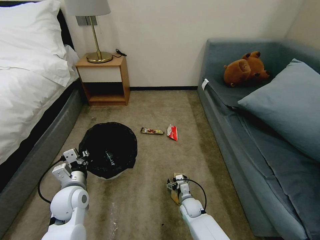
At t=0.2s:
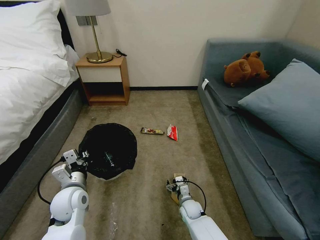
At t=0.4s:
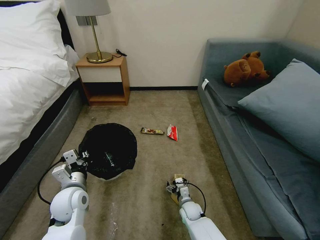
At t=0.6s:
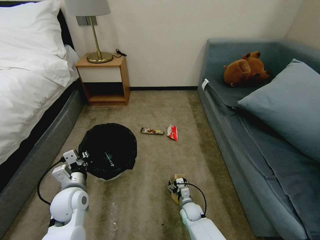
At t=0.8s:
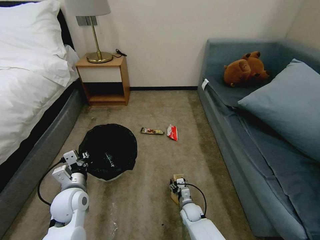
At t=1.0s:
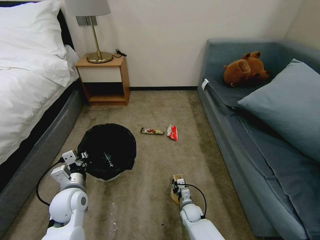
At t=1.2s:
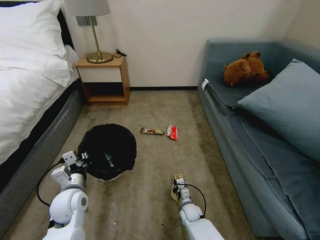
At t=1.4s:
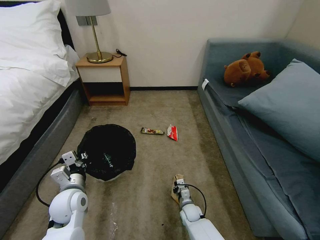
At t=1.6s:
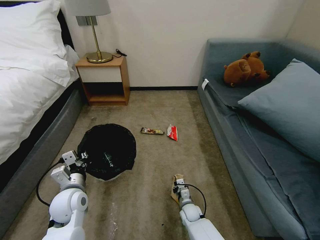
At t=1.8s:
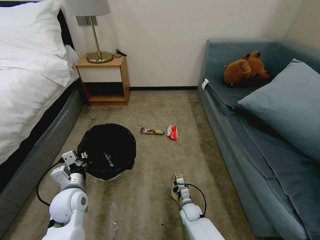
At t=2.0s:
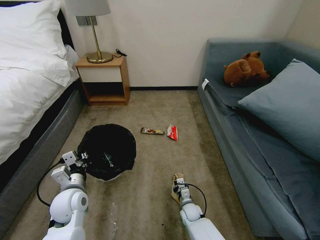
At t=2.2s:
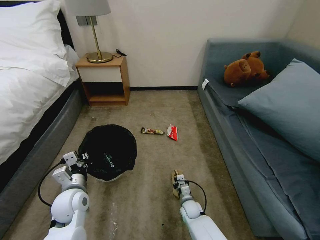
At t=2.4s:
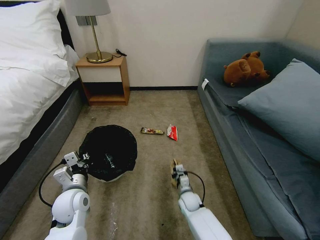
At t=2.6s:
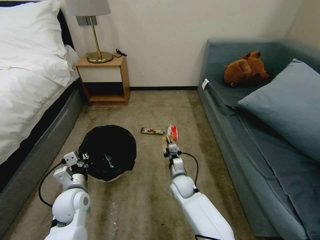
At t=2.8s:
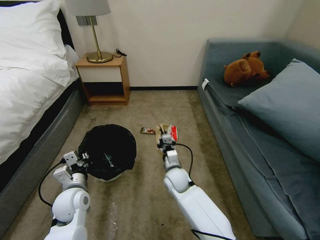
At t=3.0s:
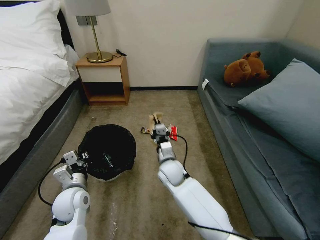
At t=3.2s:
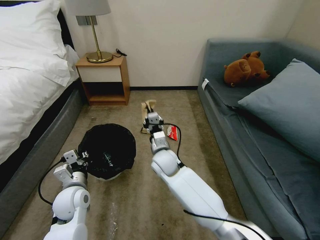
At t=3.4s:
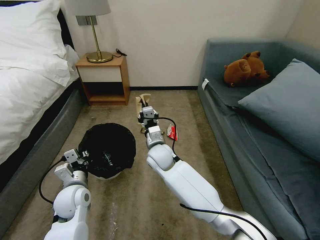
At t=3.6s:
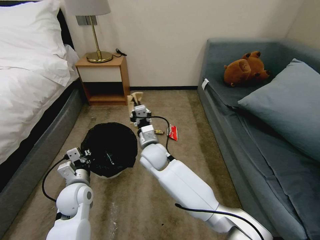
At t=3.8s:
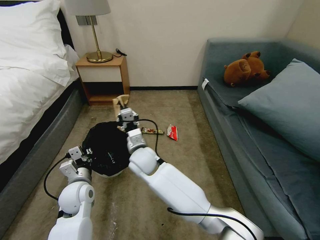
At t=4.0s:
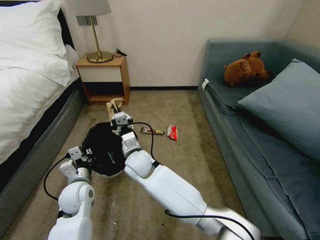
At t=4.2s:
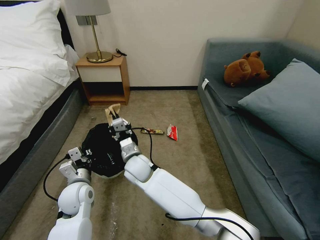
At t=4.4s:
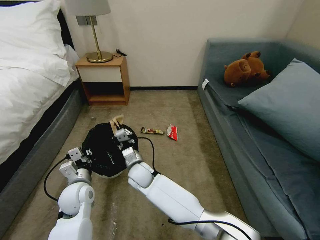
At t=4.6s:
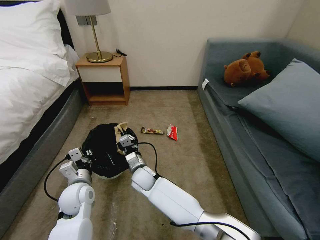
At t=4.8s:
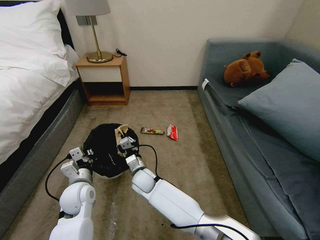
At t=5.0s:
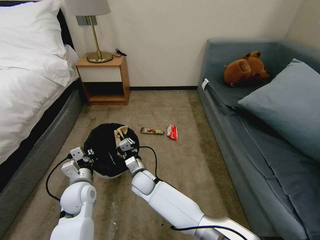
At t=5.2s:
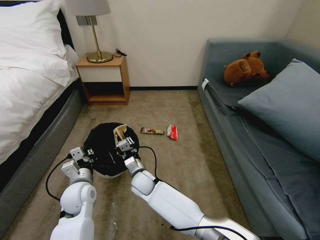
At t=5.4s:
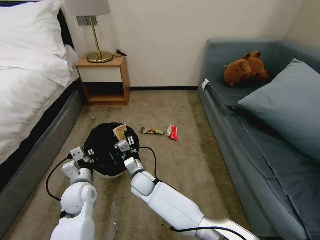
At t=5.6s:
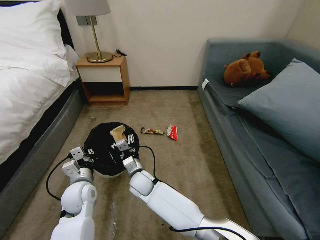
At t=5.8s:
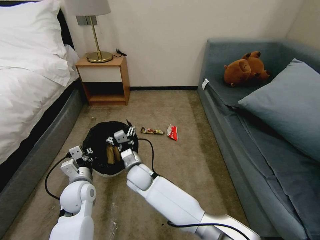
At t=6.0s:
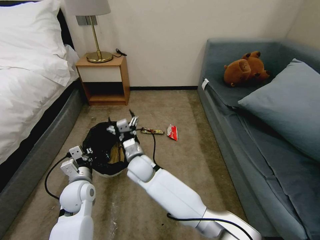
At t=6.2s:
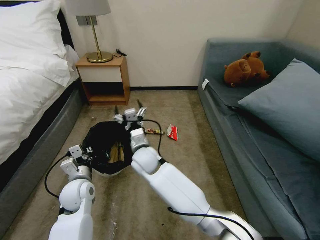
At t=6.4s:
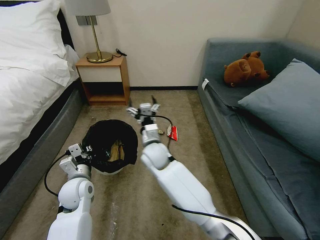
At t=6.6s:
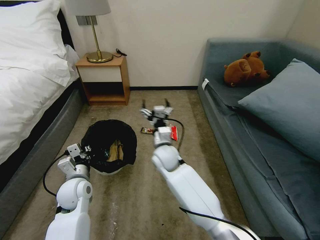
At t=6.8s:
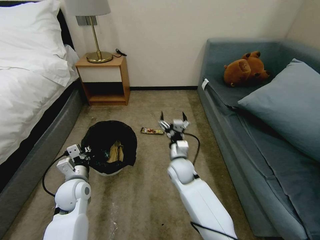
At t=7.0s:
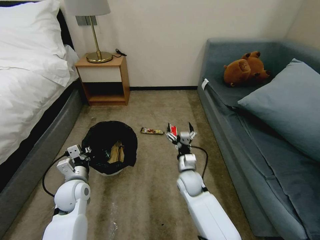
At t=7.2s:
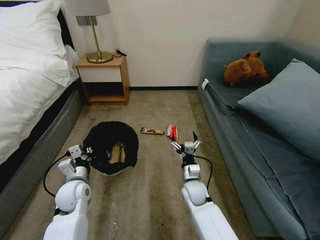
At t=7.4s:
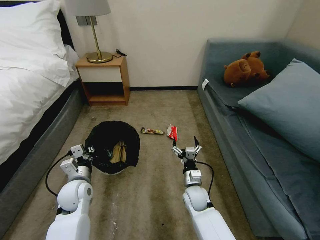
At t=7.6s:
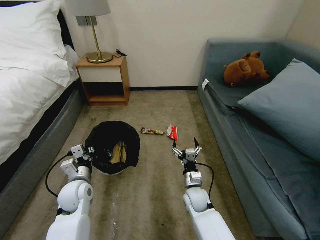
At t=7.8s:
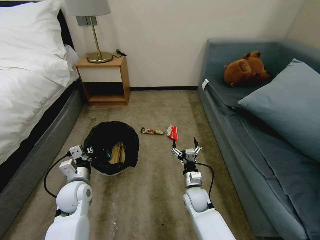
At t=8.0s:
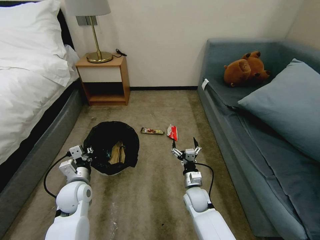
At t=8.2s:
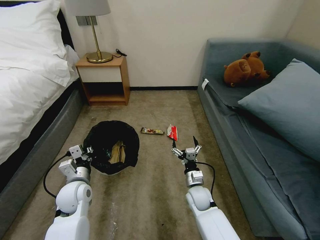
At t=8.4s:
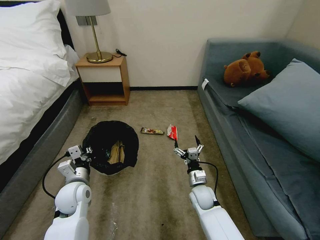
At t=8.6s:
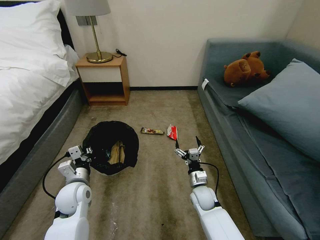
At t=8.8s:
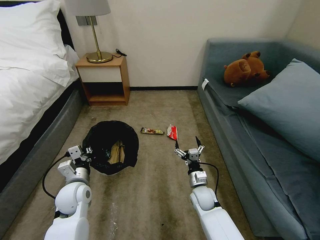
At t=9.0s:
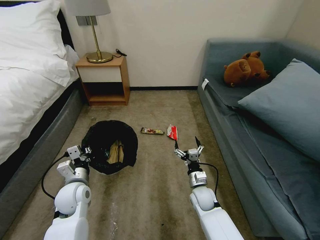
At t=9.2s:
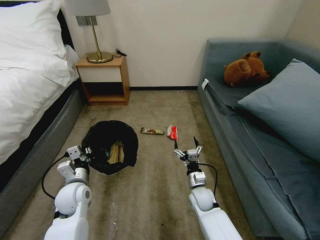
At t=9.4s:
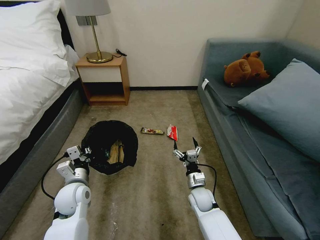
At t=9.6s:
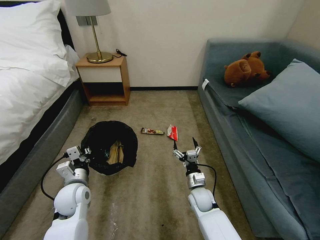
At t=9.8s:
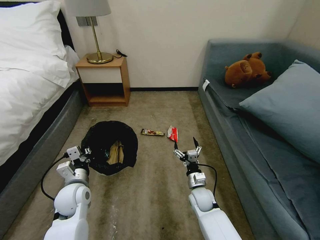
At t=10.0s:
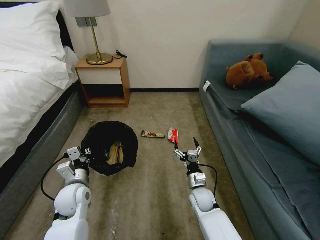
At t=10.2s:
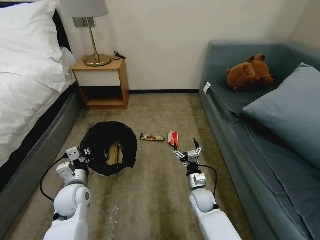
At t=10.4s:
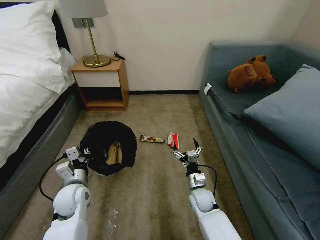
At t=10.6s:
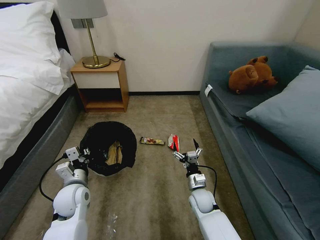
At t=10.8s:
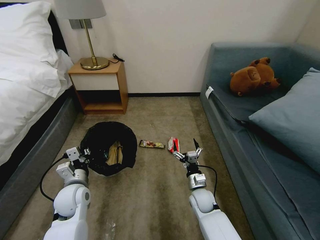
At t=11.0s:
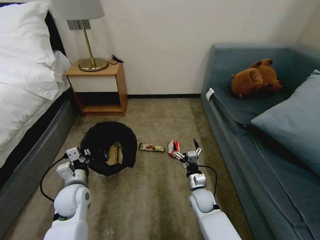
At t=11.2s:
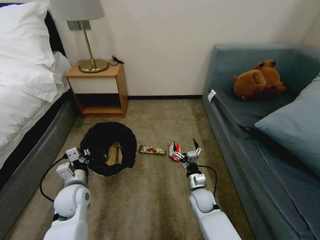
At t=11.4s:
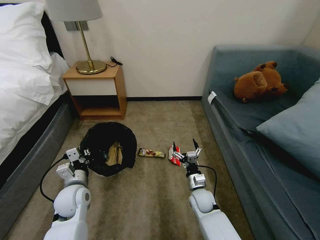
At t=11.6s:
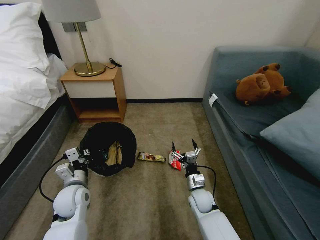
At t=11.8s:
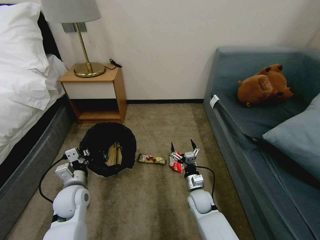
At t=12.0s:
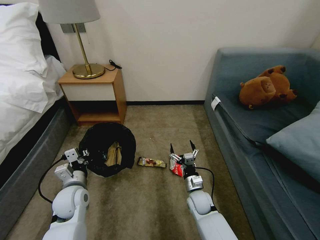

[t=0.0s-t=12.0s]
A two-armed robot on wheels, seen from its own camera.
Task of the whole recording: Pick up the trash bin, then pick up the garbage on the floor and place it into the trash bin.
t=0.0s to t=1.6s: The right gripper closes its fingers.
t=1.6s to t=3.0s: The right gripper travels upward and to the left by approximately 25 cm.
t=3.0s to t=4.4s: The right gripper moves to the left, about 10 cm.
t=4.4s to t=6.0s: The right gripper opens its fingers.
t=6.0s to t=7.6s: The right gripper heads to the right and downward, covering about 25 cm.
t=7.6s to t=9.0s: The grippers make only small movements.
t=9.0s to t=10.4s: The two grippers keep their place.

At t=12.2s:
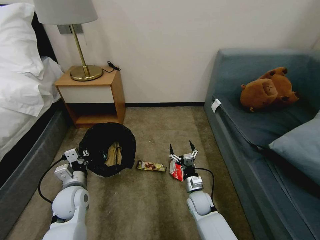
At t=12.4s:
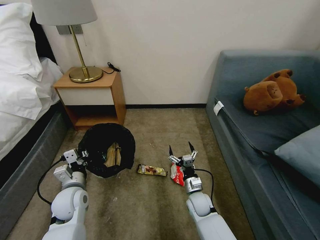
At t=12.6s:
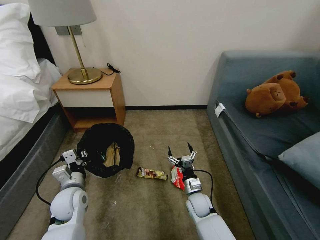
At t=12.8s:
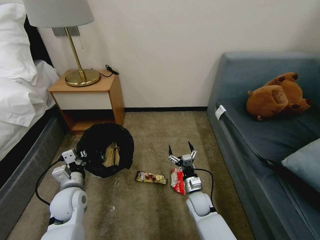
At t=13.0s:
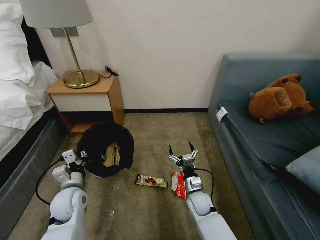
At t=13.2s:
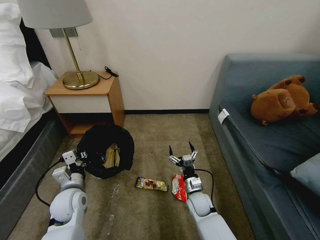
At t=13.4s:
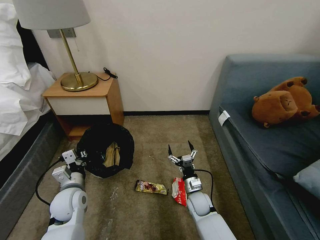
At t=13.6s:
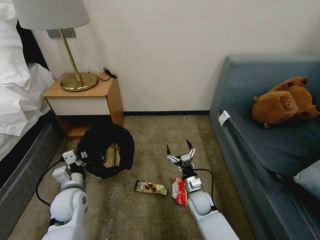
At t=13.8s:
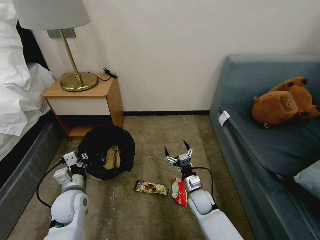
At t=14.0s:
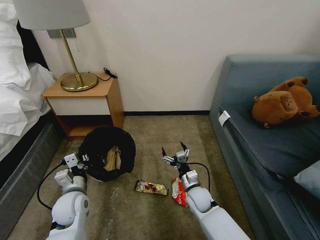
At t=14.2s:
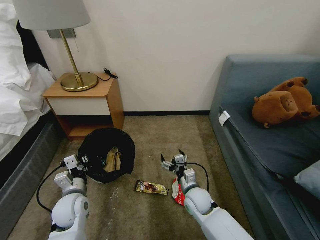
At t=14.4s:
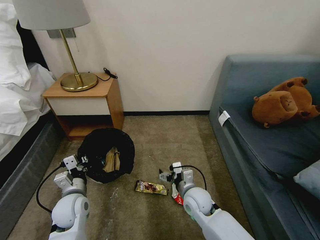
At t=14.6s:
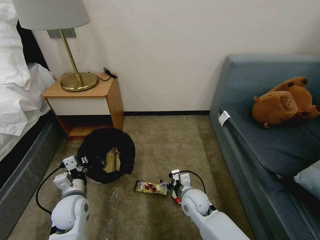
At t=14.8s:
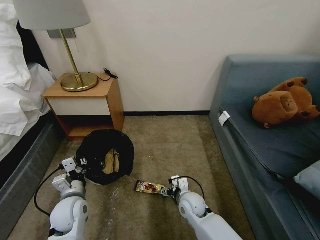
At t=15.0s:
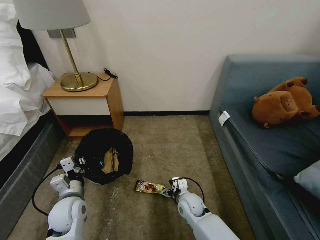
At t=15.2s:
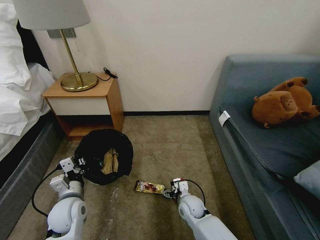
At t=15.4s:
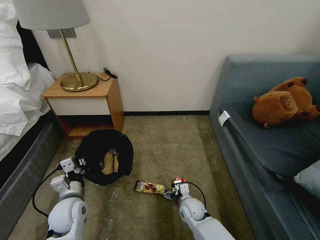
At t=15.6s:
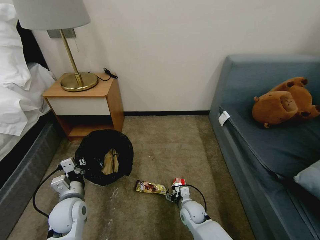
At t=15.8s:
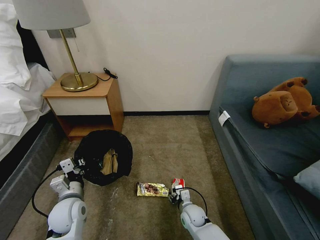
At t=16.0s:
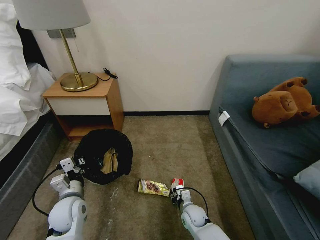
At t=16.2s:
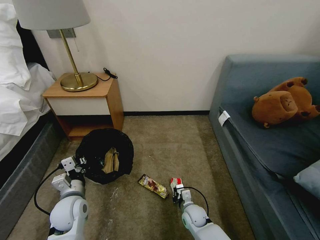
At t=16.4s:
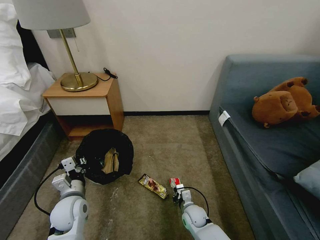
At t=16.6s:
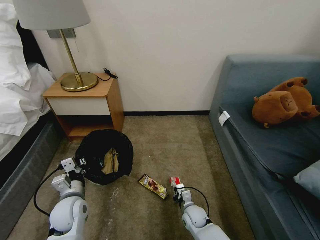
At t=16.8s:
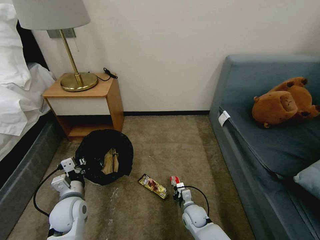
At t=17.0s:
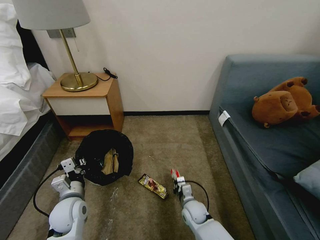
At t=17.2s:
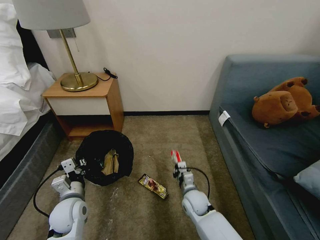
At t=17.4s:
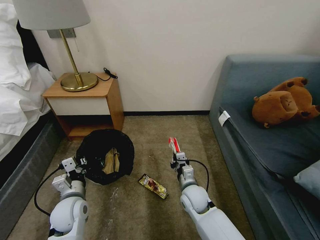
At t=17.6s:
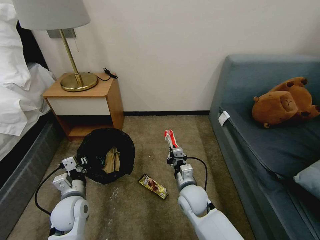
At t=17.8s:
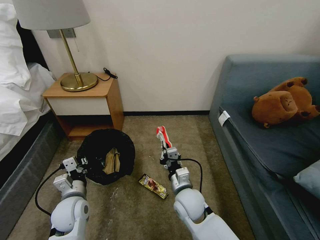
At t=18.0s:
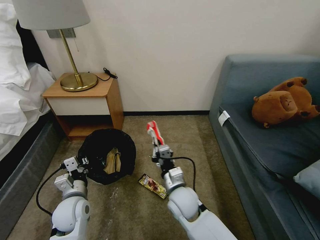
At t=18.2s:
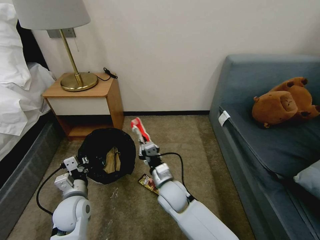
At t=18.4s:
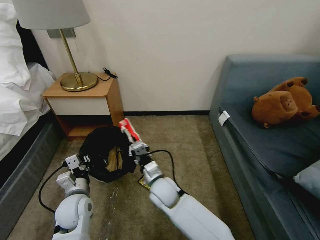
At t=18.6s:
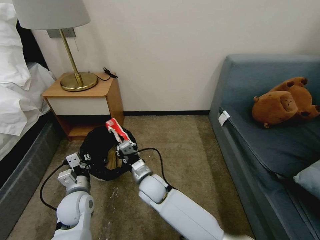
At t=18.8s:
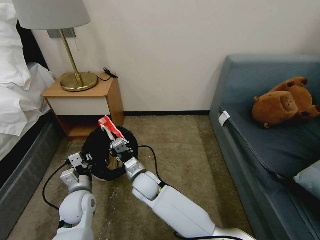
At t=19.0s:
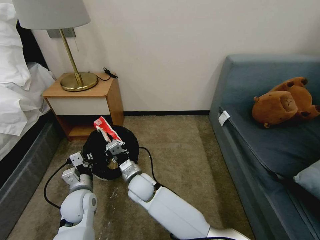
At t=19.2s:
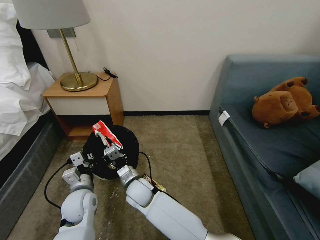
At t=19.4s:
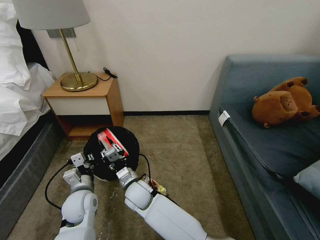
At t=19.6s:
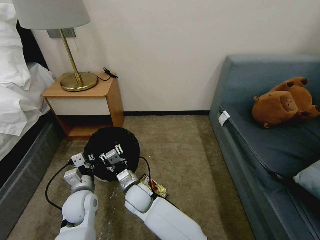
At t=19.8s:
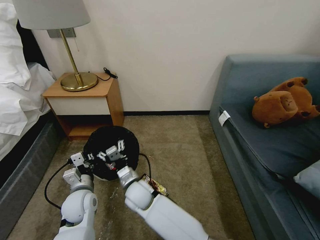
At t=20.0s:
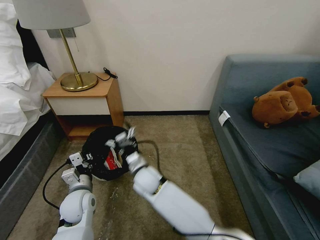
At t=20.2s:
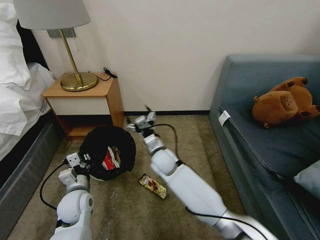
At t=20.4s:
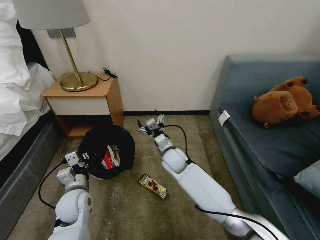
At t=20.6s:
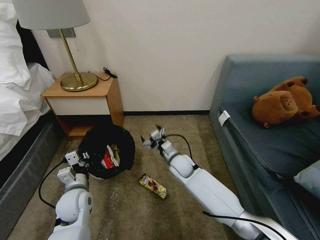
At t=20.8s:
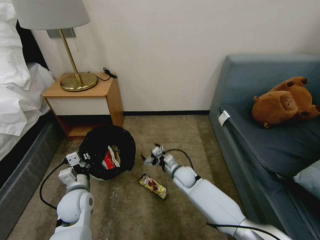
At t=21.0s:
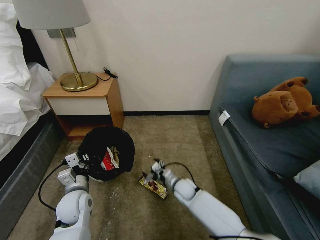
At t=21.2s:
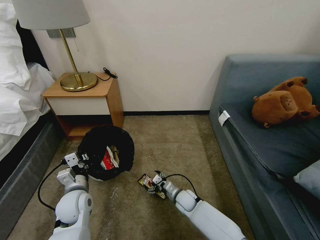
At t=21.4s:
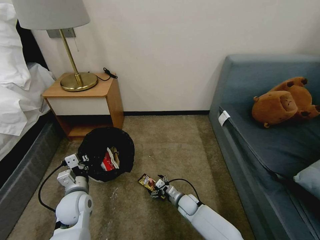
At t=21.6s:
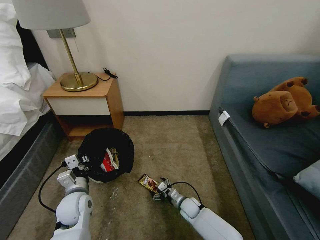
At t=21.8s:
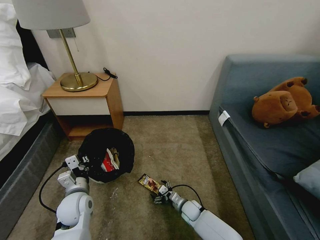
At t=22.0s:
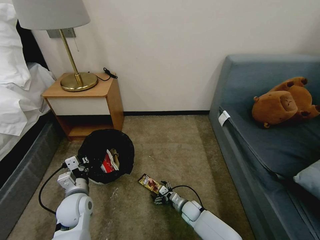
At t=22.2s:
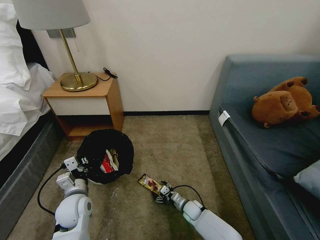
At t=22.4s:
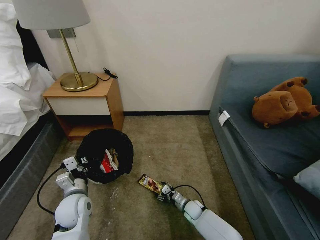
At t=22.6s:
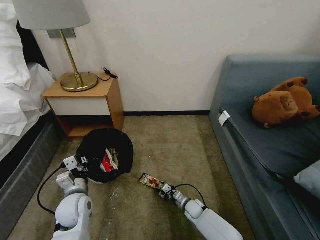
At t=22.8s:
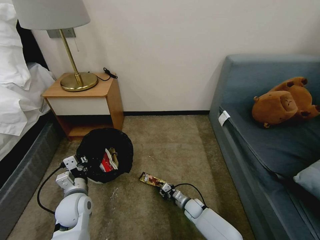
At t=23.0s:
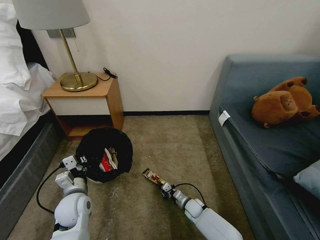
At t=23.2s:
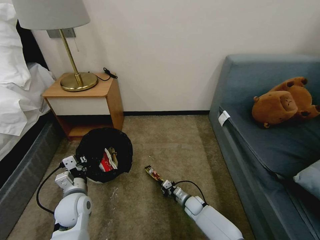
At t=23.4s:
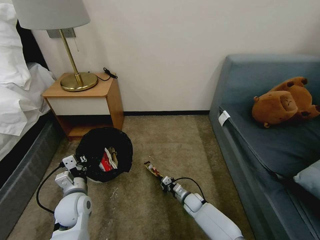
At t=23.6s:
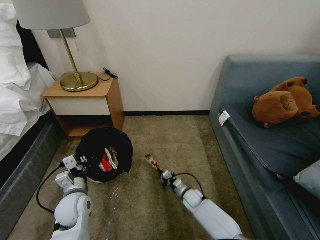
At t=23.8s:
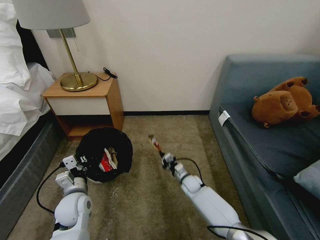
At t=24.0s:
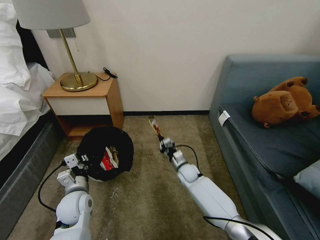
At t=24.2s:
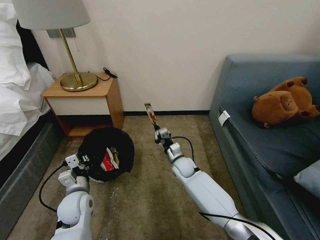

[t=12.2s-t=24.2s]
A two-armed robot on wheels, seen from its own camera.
Task of the whole recording: Pick up the trash bin, then pick up the garbage on the floor and place it into the trash bin.
t=13.8s to t=15.2s: The right gripper moves some 10 cm upward and comes back.
t=15.2s to t=16.6s: The right gripper goes approximately 5 cm downward, and closes its fingers.
t=16.6s to t=18.2s: The right gripper goes some 20 cm upward and to the left.
t=18.2s to t=19.8s: The right gripper moves to the left, some 10 cm, and opens.
t=19.8s to t=21.2s: The right gripper moves to the right and downward, about 25 cm.
t=21.2s to t=22.6s: The right gripper shifts about 5 cm downward, and closes its fingers.
t=22.6s to t=24.2s: The right gripper is displaced upward and forward by approximately 20 cm, and closes.
